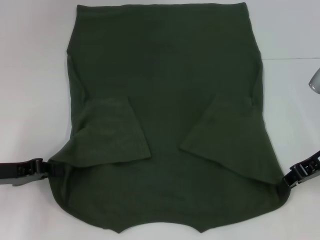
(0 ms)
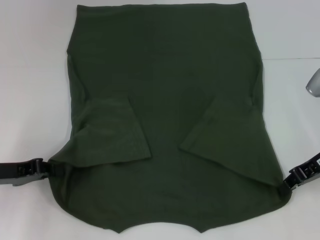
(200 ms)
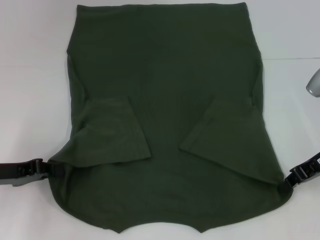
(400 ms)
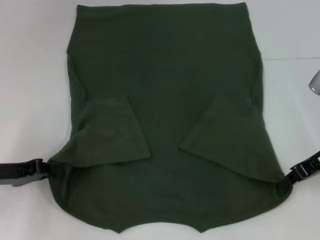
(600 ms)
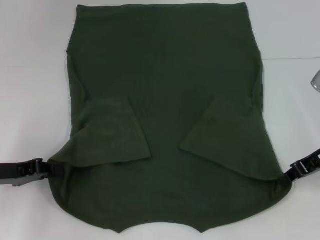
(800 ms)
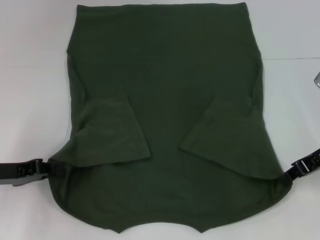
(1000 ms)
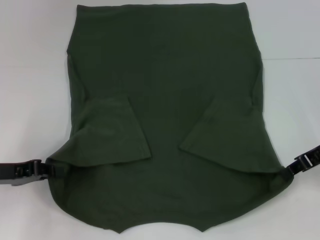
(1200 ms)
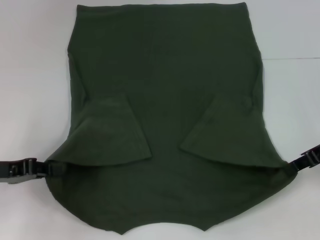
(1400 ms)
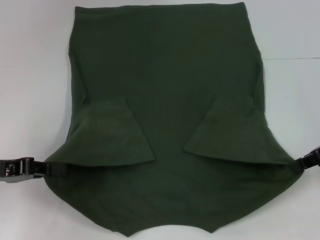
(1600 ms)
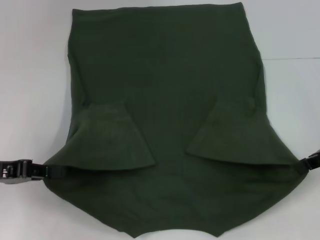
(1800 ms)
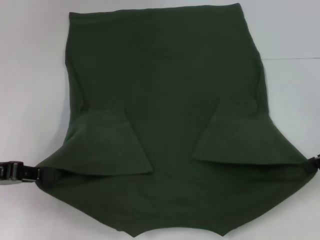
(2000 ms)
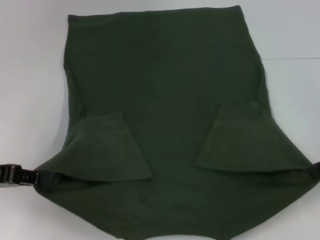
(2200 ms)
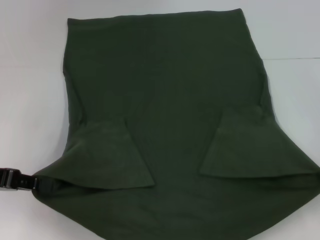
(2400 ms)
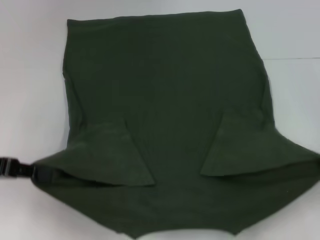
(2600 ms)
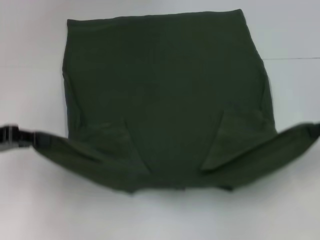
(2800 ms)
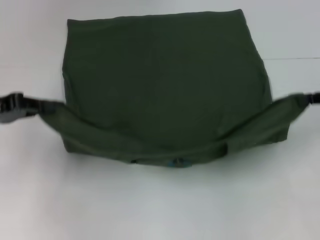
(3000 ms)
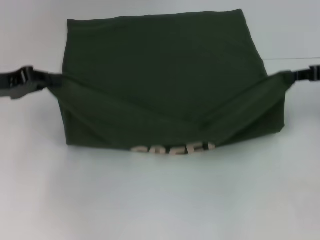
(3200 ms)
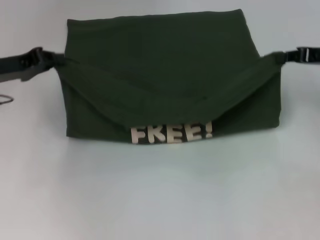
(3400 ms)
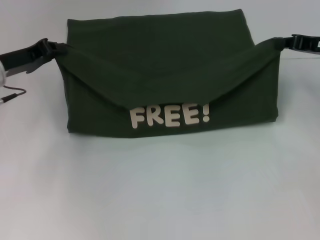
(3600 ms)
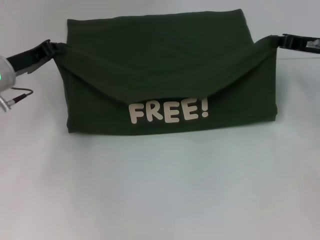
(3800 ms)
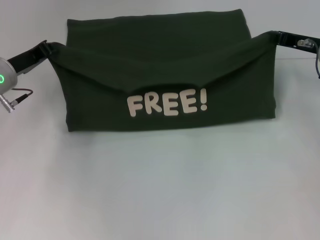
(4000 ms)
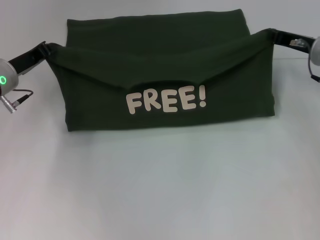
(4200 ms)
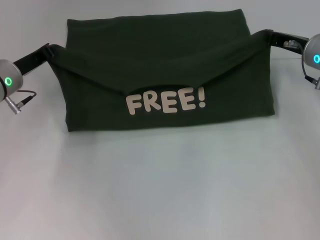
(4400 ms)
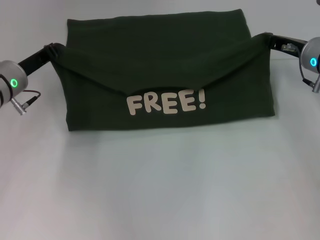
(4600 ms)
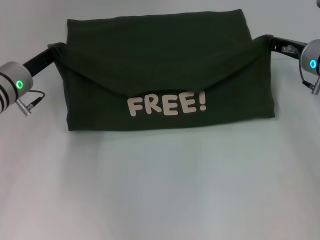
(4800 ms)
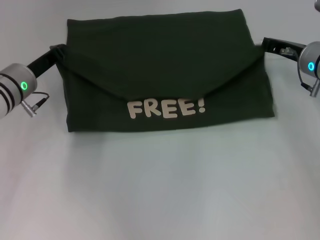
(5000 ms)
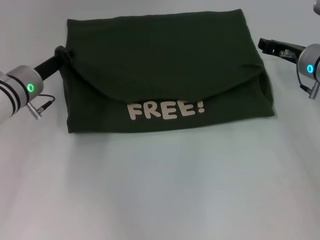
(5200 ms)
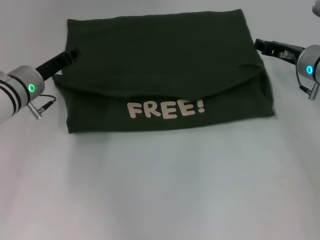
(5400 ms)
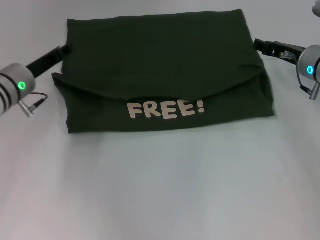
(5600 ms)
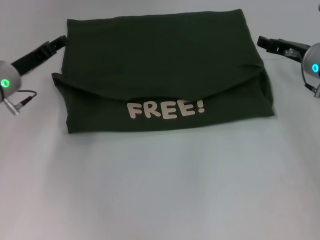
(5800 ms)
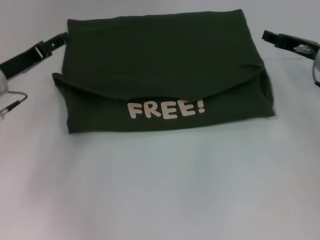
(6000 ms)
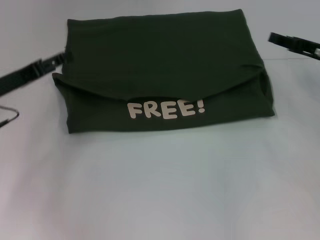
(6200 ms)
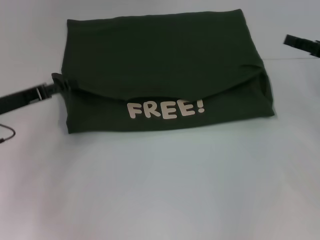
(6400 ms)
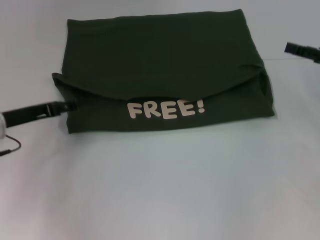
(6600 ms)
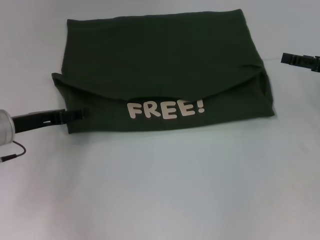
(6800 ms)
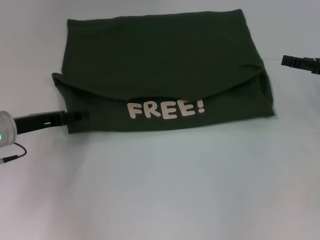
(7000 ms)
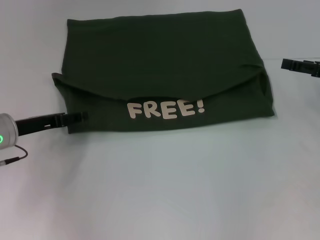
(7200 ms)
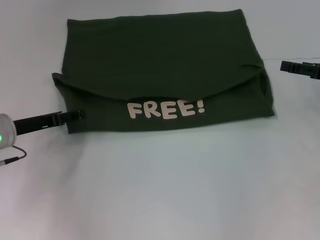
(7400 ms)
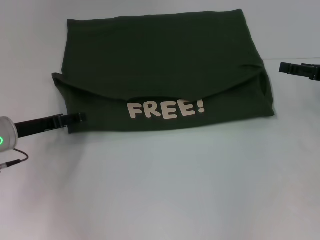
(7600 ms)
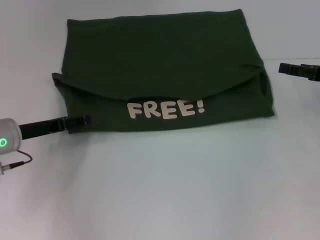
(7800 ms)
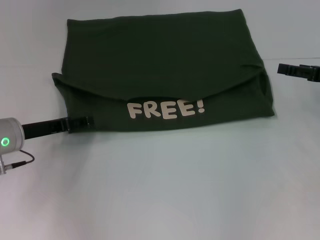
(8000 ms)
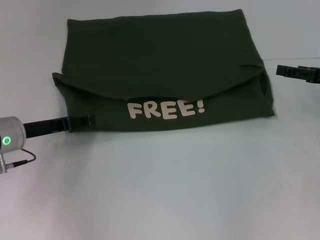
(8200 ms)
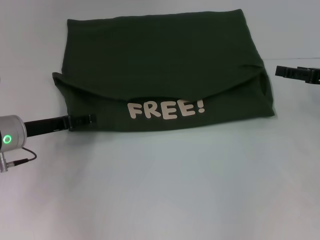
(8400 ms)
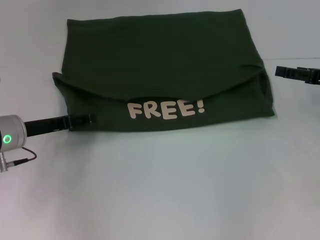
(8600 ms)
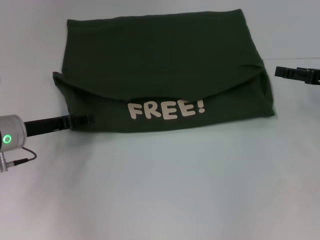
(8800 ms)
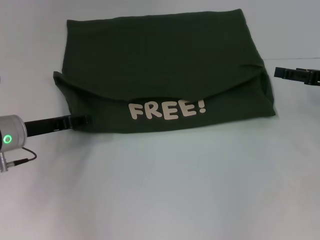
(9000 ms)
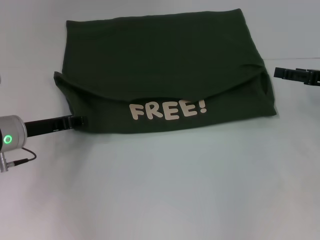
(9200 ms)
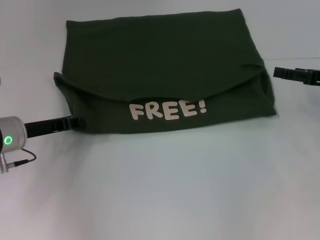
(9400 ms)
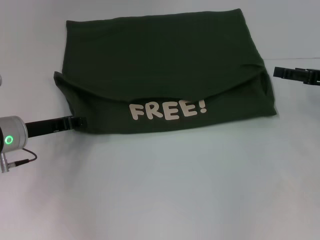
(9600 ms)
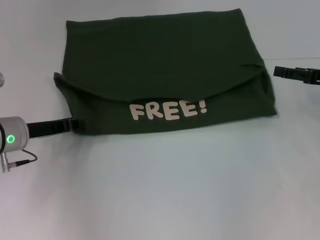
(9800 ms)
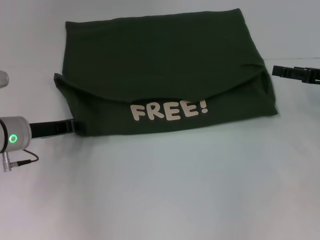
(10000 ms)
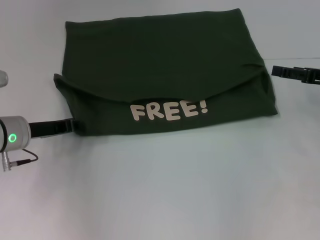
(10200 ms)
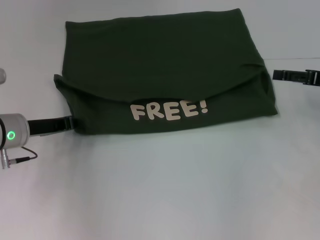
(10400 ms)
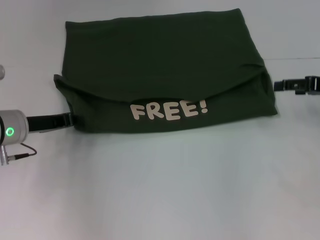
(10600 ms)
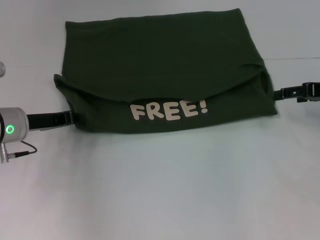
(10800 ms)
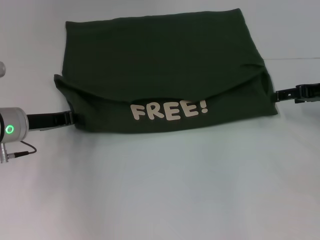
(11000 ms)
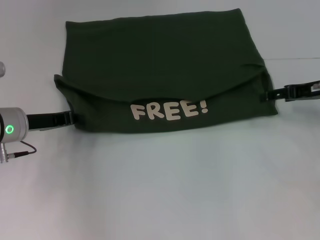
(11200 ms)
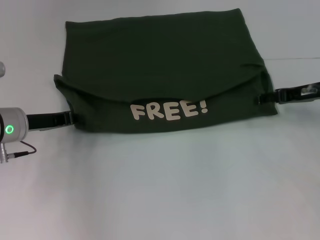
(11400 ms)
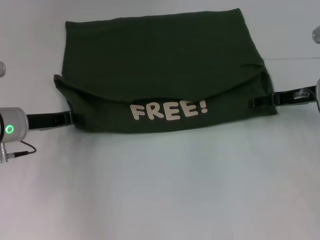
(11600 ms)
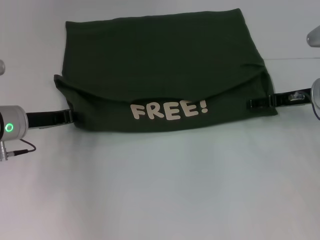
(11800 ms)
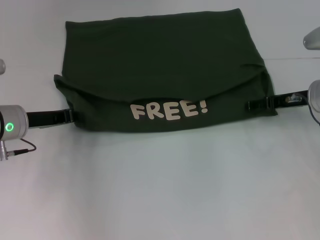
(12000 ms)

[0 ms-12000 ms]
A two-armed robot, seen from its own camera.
Step, 1200 ms to 5400 ms: Fold the clothes with your left hand.
Step, 1200 ms to 5400 ms: Fold the clothes with your right hand.
0 ms to 1600 ms: There are only small adjustments of the grippers.
1600 ms to 3000 ms: The left gripper is displaced upward by approximately 5 cm.
3000 ms to 4400 ms: The right gripper goes about 15 cm to the left, forward and downward. Meanwhile the left gripper goes roughly 10 cm forward, to the right and downward.
4400 ms to 6000 ms: The right gripper opens its fingers; the left gripper opens its fingers.
6000 ms to 7600 ms: The right gripper travels to the right and backward by some 10 cm. Meanwhile the left gripper ends up some 5 cm from where it was.
7600 ms to 9000 ms: Neither gripper changes place.
9000 ms to 10400 ms: The left gripper closes.
10400 ms to 12000 ms: The right gripper shifts approximately 5 cm to the left.

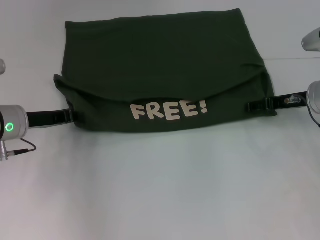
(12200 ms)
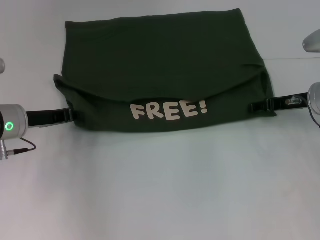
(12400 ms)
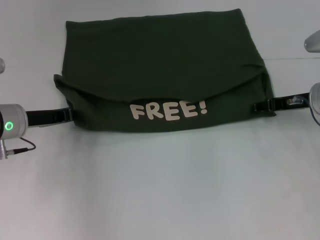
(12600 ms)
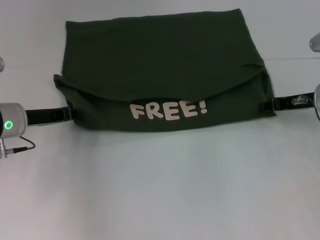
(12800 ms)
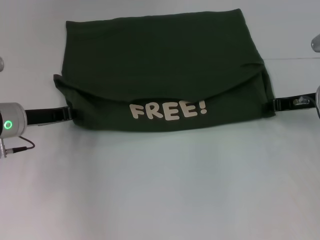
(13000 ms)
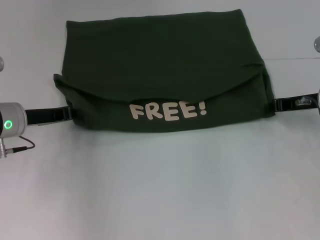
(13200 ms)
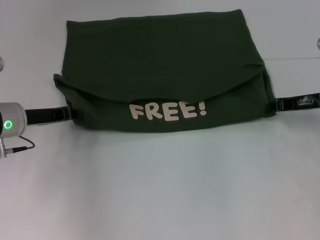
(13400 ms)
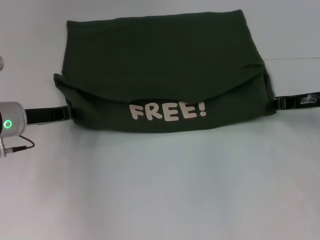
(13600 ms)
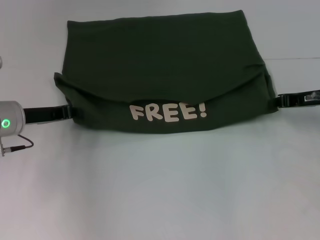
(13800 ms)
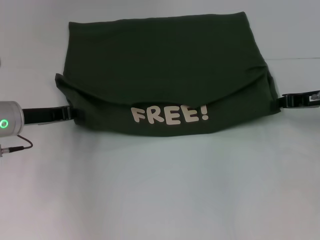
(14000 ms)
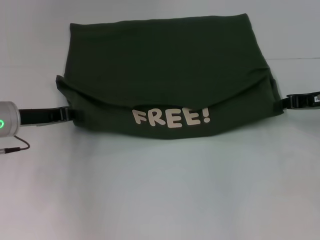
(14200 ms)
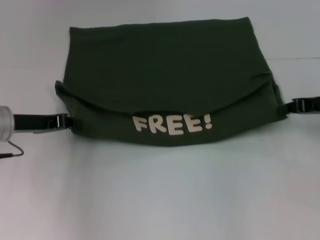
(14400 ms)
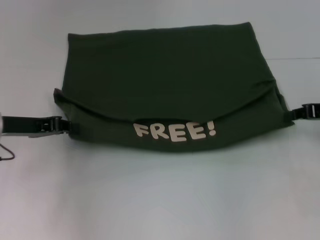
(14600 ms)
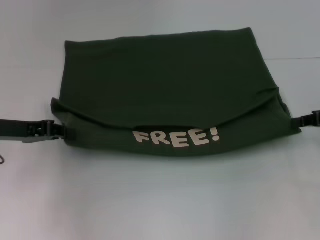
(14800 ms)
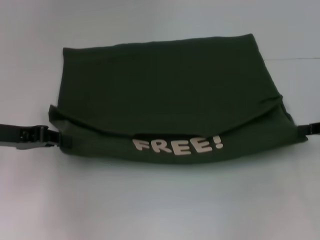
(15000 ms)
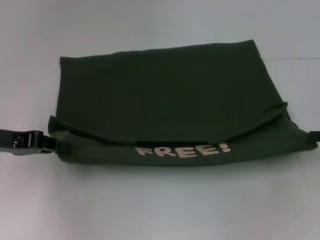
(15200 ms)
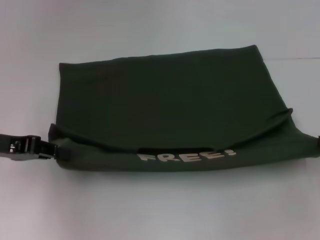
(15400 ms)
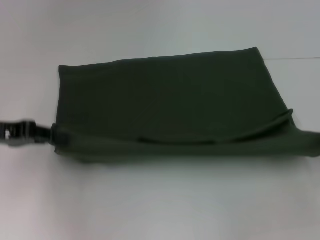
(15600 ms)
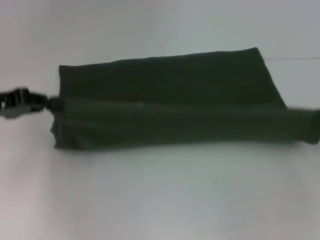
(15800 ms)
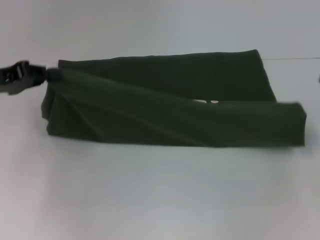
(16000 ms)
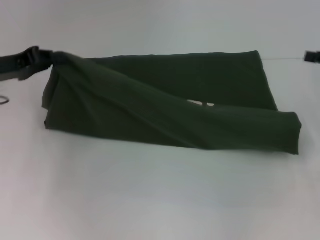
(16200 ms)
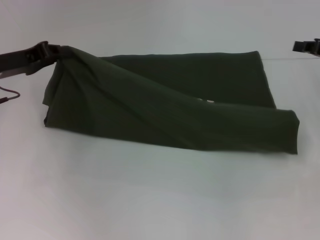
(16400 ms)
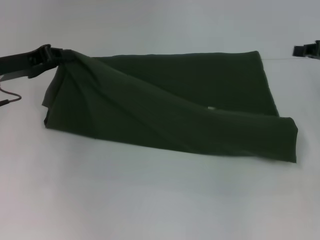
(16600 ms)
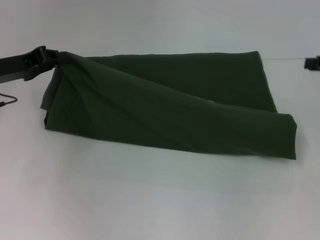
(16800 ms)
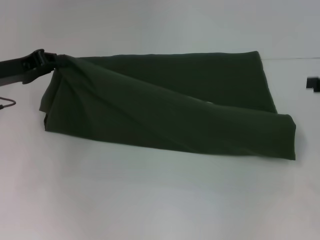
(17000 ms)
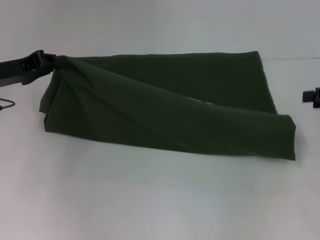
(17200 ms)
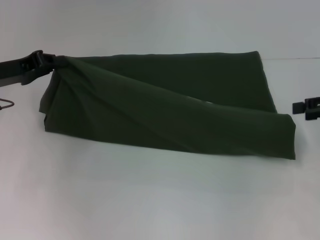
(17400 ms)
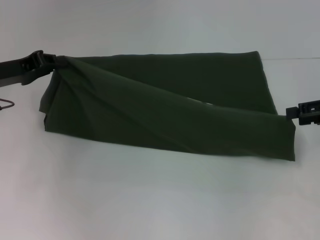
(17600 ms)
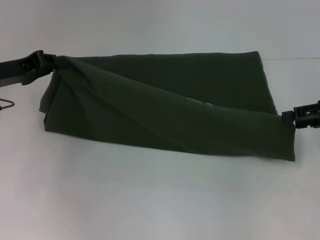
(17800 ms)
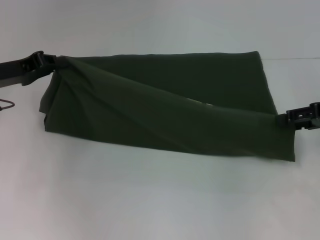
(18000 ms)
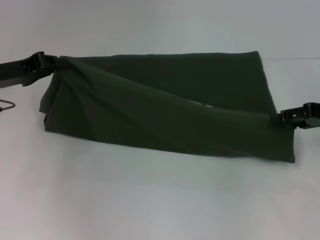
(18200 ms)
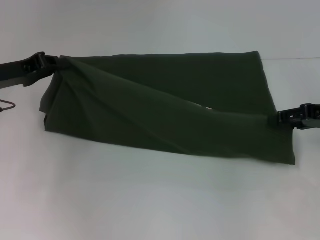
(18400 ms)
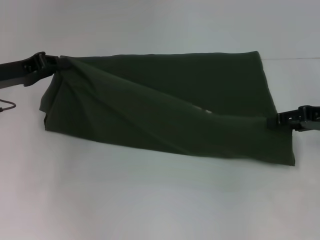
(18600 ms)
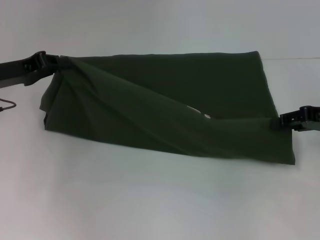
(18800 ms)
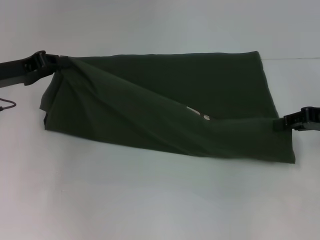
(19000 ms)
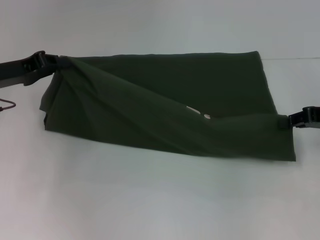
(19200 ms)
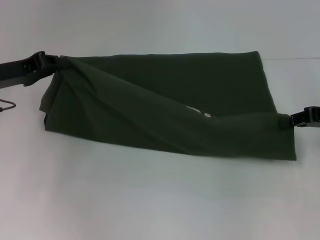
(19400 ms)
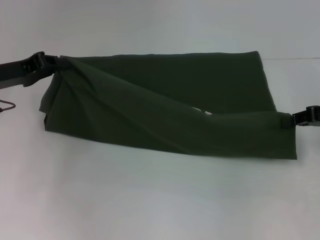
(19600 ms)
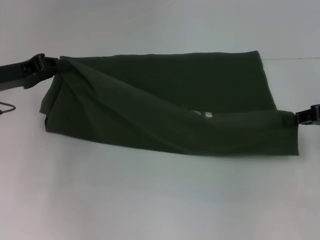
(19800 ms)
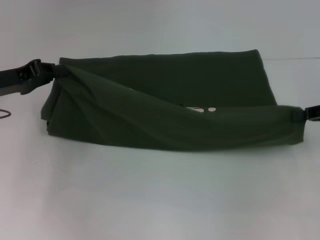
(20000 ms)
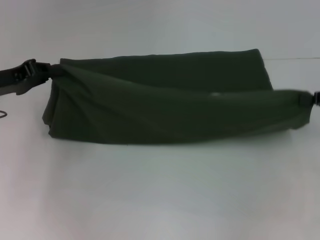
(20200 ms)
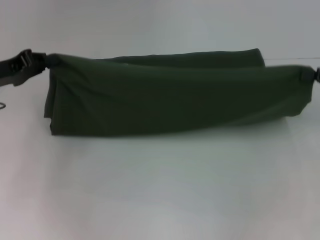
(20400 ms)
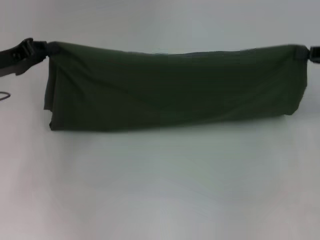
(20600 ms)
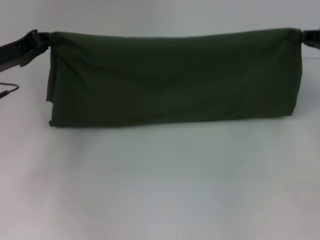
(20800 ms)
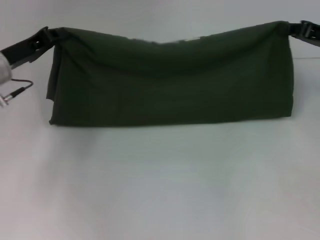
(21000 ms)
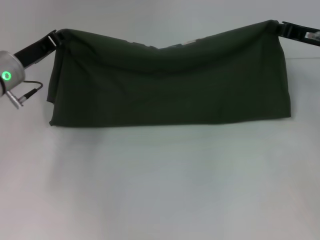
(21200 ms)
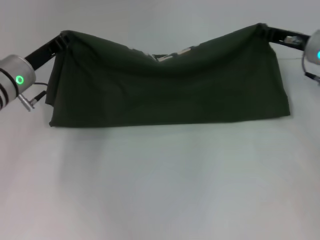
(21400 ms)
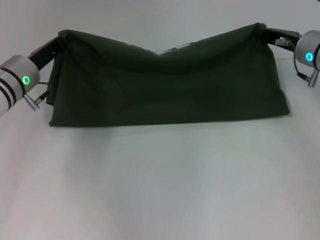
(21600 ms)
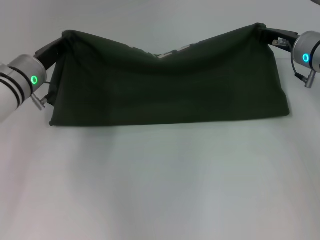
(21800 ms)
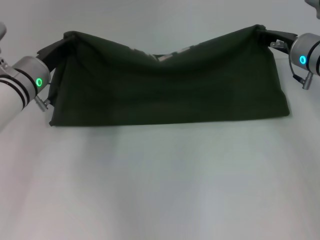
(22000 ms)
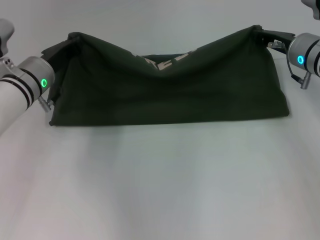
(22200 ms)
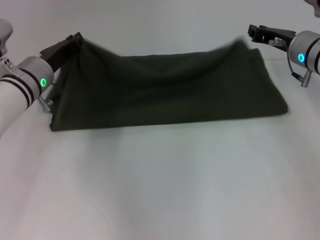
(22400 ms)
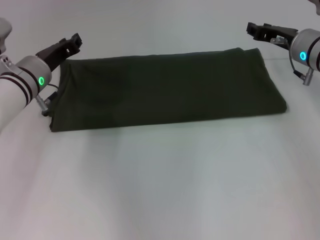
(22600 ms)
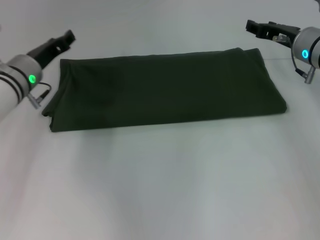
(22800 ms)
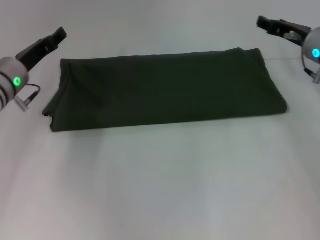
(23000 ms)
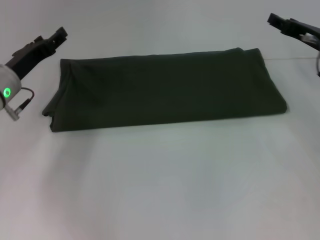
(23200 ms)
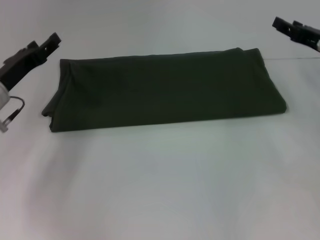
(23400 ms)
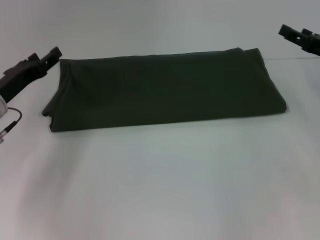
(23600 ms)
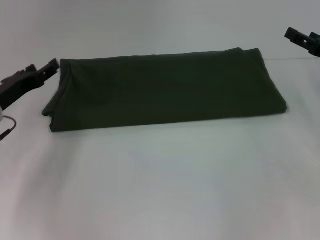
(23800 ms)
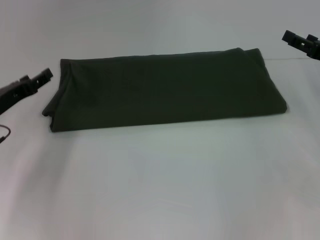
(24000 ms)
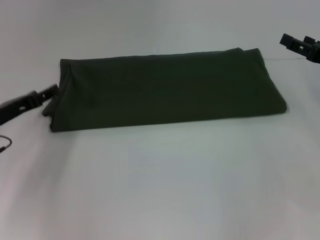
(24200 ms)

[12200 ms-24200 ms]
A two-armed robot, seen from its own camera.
Step, 12200 ms to 15200 ms: Pull the clothes with your left hand.
Step, 12200 ms to 15200 ms: Pull the clothes with your right hand.
Step, 15400 ms to 22400 ms: Fold the clothes with your right hand.
12200 ms to 13800 ms: The right gripper closes.
13800 ms to 15200 ms: The left gripper shifts about 10 cm backward and upward. Meanwhile the right gripper heads backward and to the right, covering about 10 cm.
15200 ms to 16600 ms: The two grippers go some 10 cm forward.
16600 ms to 18200 ms: The right gripper opens.
18200 ms to 19800 ms: The right gripper closes.
19800 ms to 21200 ms: The left gripper ends up some 5 cm from where it was. The right gripper travels forward and to the left by about 10 cm.
21200 ms to 22600 ms: The right gripper goes about 5 cm to the left.
22600 ms to 24200 ms: The left gripper moves to the left and backward, some 10 cm, and opens its fingers, while the right gripper travels to the right and backward by some 10 cm, and opens up.
